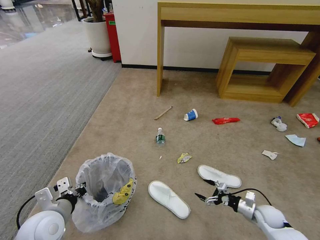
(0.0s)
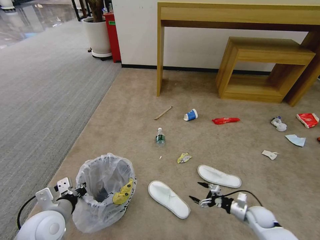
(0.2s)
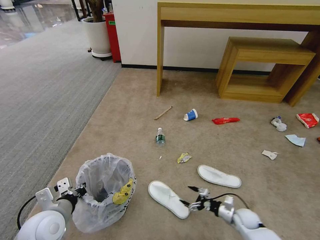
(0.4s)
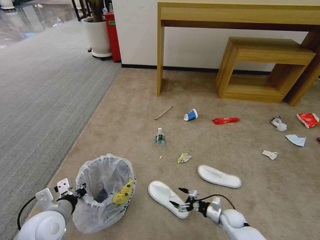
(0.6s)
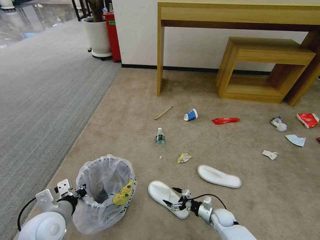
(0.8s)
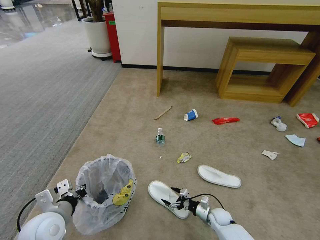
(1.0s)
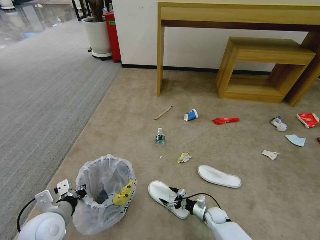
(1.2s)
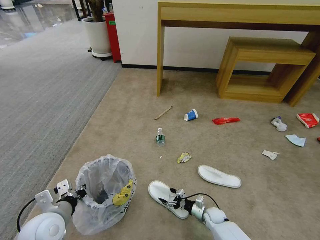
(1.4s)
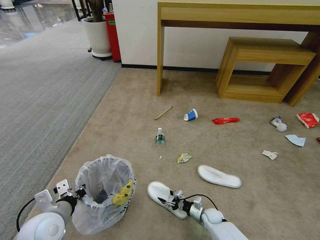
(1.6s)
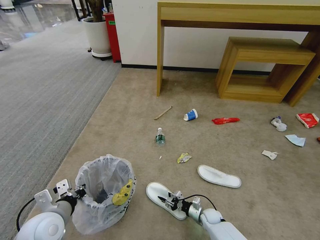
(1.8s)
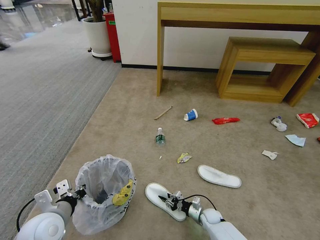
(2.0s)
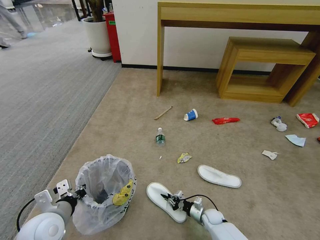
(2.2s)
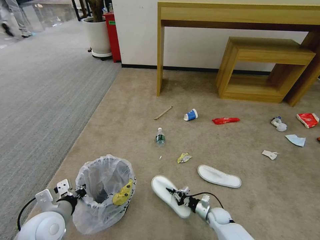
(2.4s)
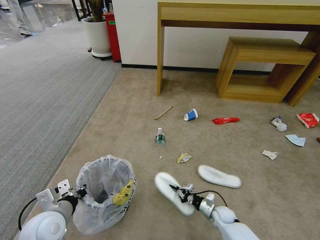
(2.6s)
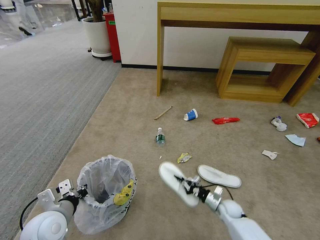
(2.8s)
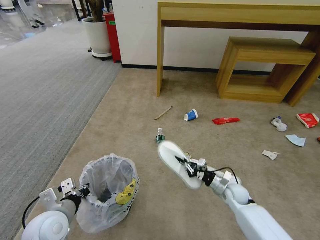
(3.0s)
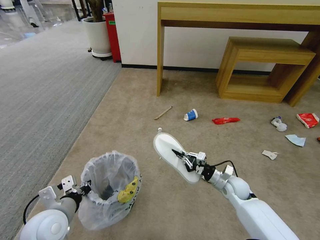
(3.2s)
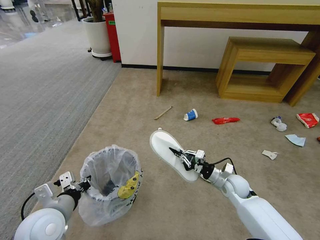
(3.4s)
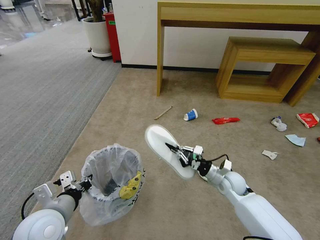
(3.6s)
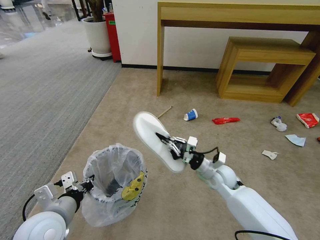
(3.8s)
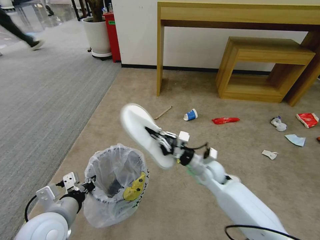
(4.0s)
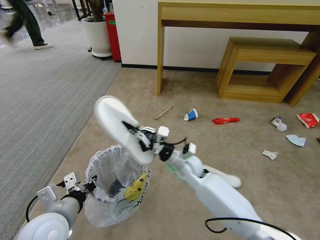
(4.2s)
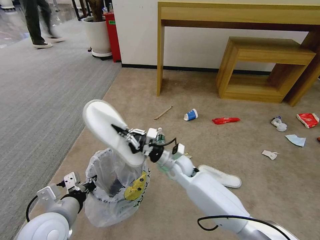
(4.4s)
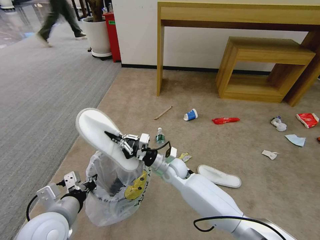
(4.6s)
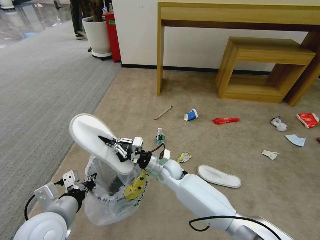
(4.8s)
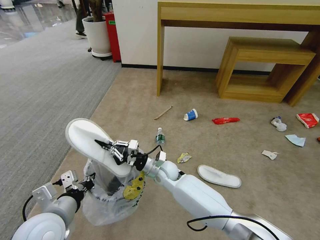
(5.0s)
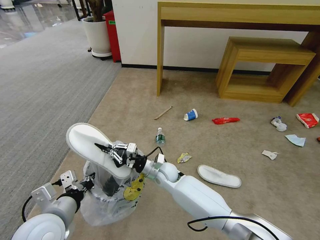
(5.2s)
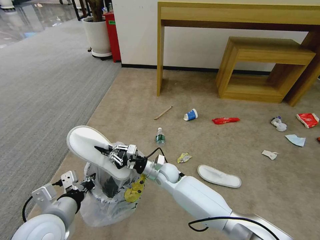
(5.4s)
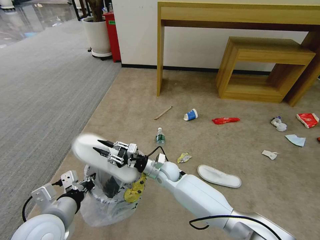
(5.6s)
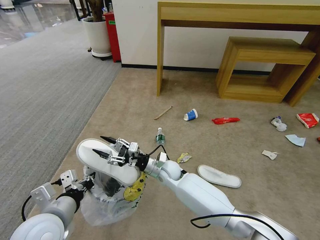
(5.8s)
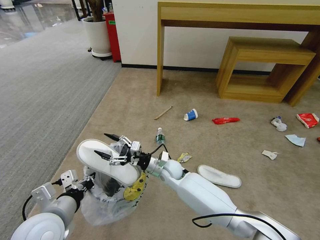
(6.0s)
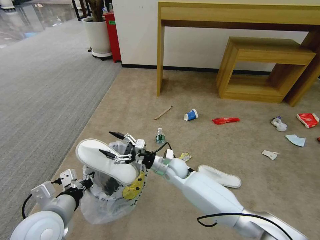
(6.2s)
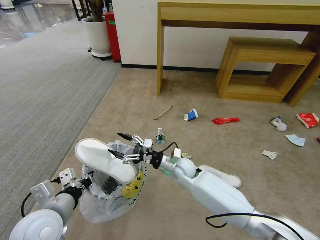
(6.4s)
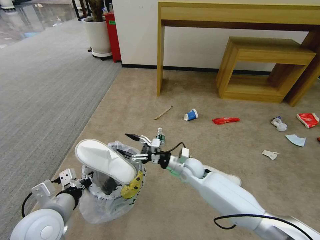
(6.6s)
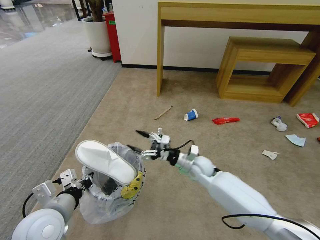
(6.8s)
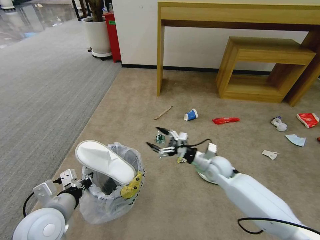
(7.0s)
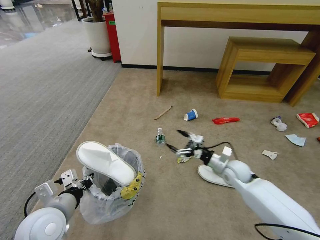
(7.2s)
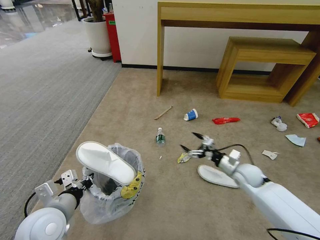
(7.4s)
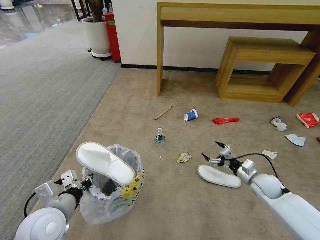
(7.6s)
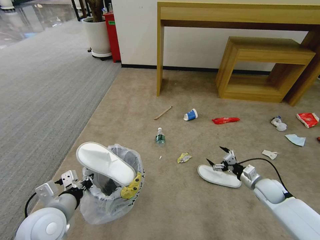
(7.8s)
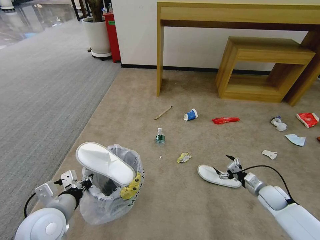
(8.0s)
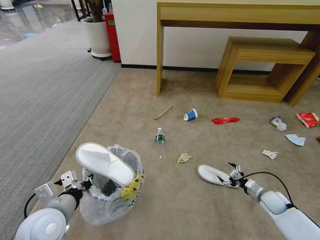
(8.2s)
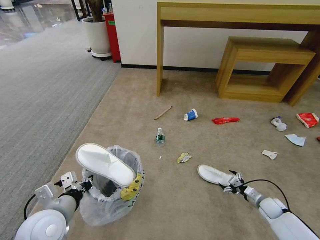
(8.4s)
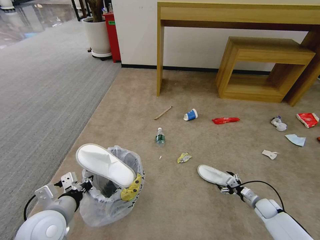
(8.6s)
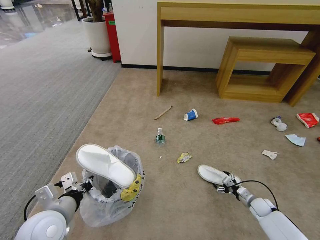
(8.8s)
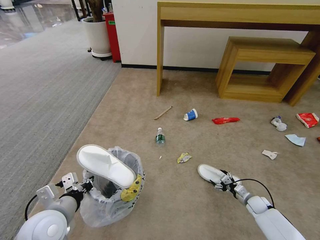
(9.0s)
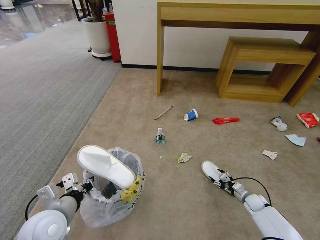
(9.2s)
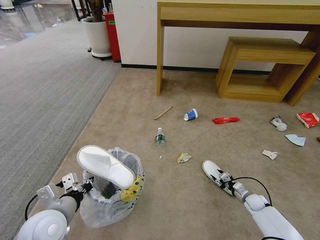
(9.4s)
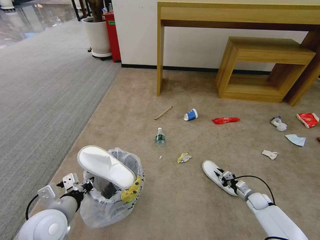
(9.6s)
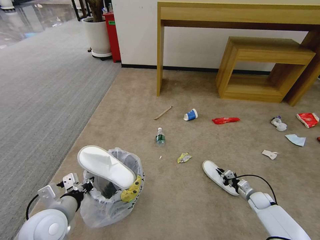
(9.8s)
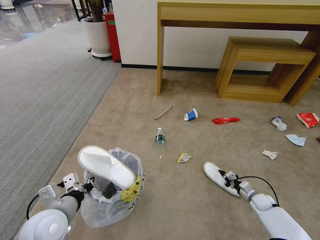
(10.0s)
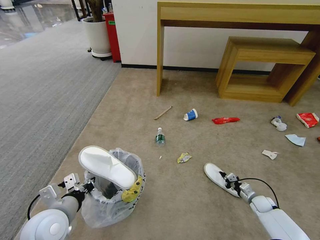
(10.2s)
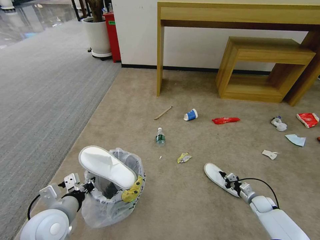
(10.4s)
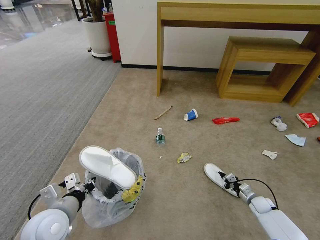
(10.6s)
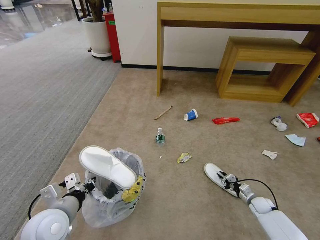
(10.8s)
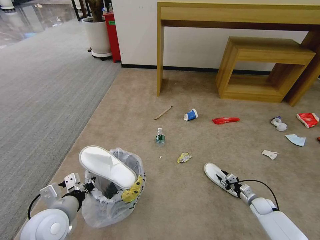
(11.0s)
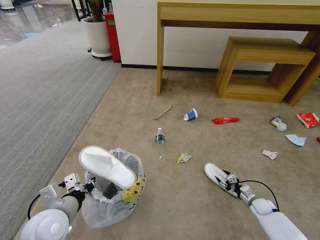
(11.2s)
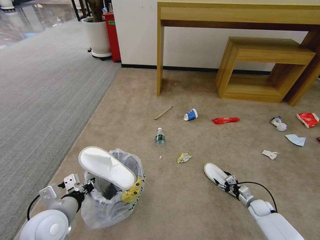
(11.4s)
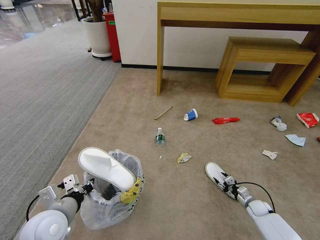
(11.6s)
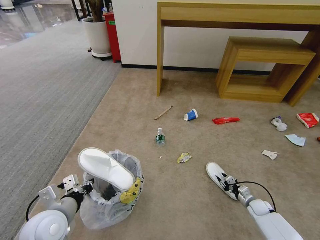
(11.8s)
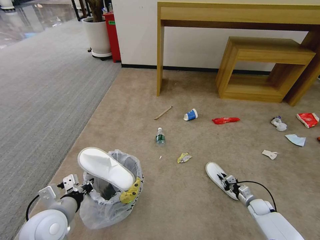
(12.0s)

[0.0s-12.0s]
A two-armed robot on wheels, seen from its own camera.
Task of the whole recording: Pick up the trash bin and place the garbage on the floor into it.
0.0s to 1.6s: The right gripper heads to the left and downward, covering approximately 20 cm, and closes.
1.6s to 3.0s: The right gripper goes approximately 15 cm upward and to the right, and closes.
3.0s to 4.4s: The left gripper goes roughly 5 cm upward. Meanwhile the right gripper goes approximately 30 cm to the left and upward.
4.4s to 6.0s: The right gripper opens up.
6.0s to 7.6s: The right gripper travels to the right by roughly 35 cm.
7.6s to 9.0s: The right gripper heads downward, covering roughly 15 cm.
9.0s to 10.4s: The right gripper closes.
10.4s to 12.0s: The right gripper opens, then closes again.

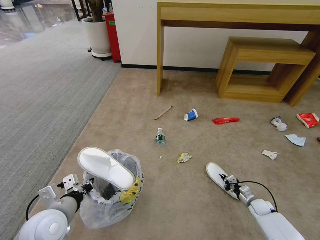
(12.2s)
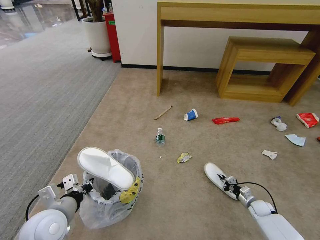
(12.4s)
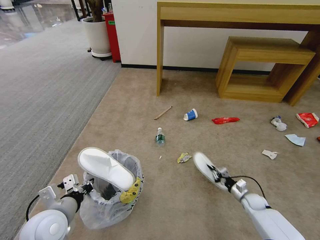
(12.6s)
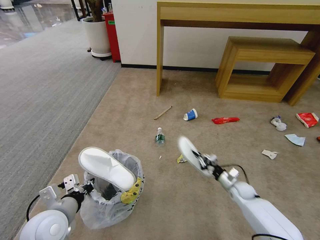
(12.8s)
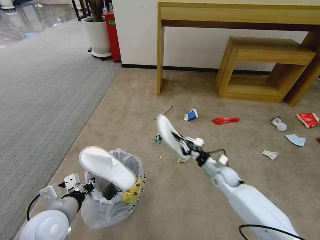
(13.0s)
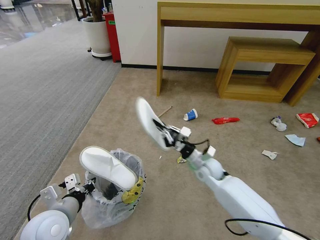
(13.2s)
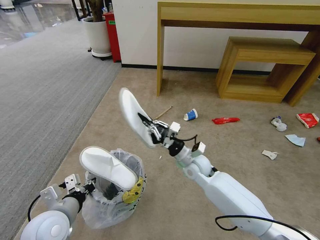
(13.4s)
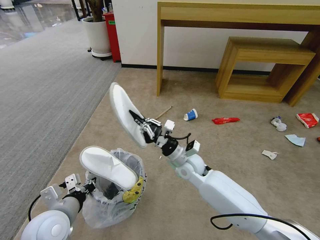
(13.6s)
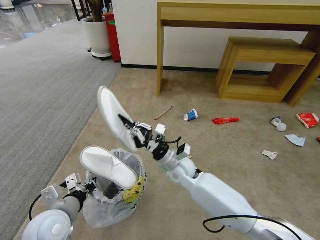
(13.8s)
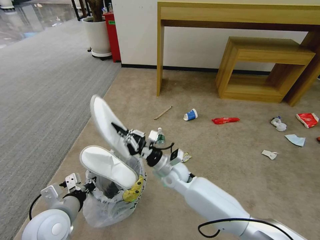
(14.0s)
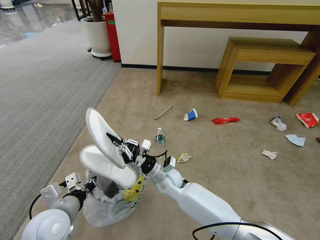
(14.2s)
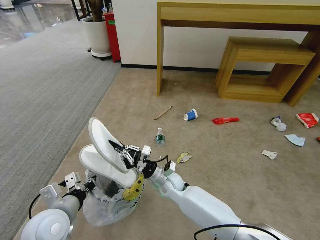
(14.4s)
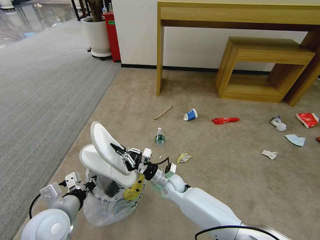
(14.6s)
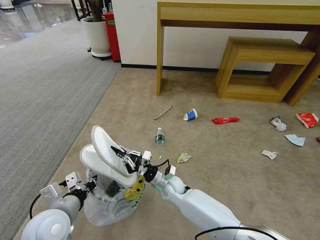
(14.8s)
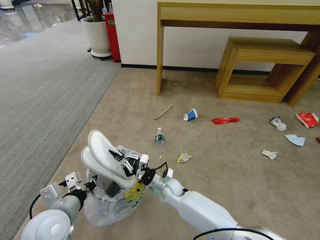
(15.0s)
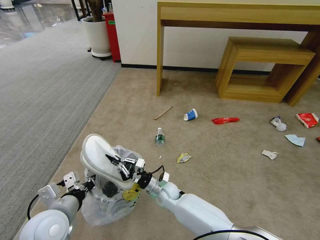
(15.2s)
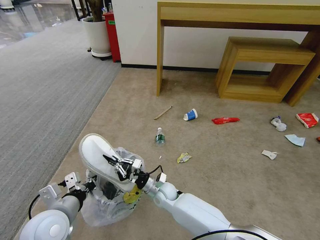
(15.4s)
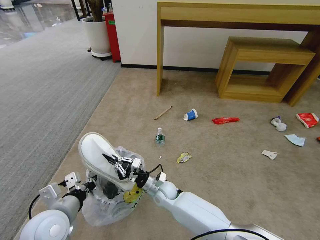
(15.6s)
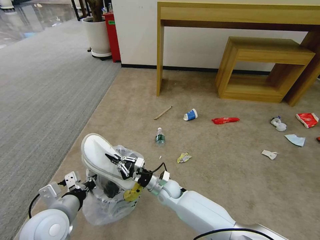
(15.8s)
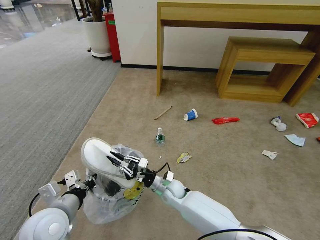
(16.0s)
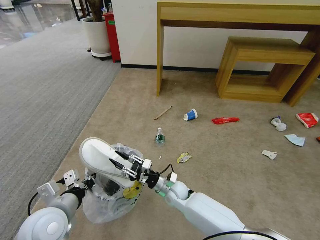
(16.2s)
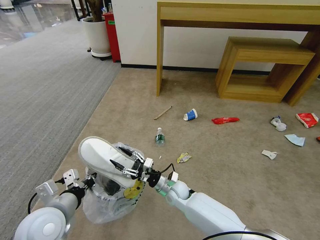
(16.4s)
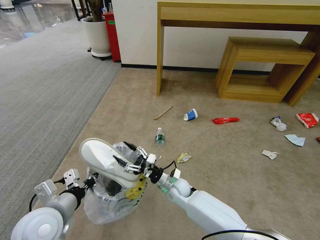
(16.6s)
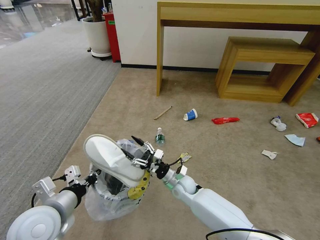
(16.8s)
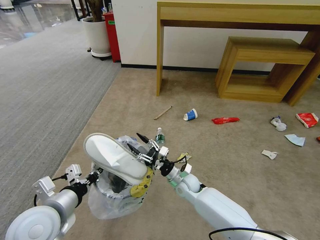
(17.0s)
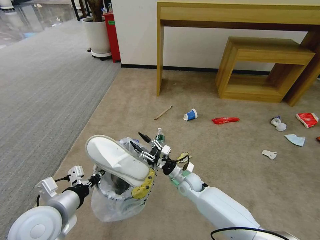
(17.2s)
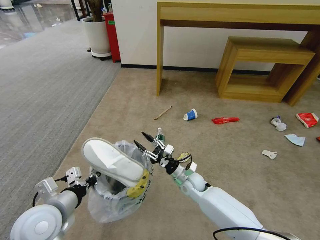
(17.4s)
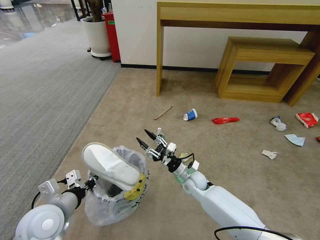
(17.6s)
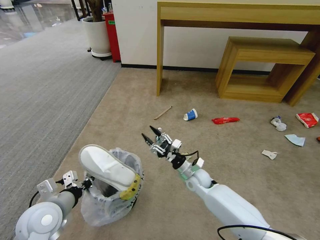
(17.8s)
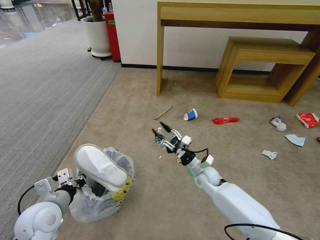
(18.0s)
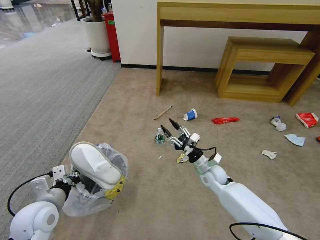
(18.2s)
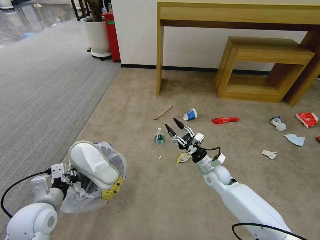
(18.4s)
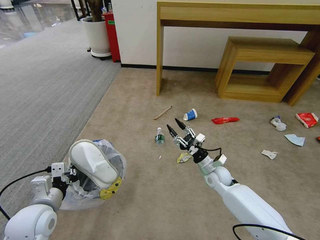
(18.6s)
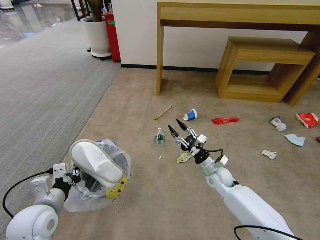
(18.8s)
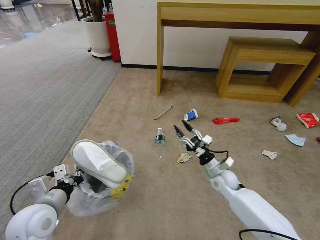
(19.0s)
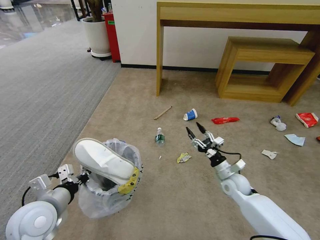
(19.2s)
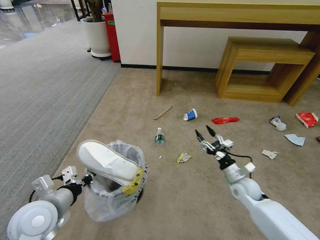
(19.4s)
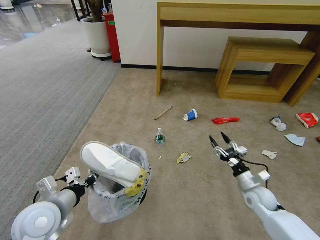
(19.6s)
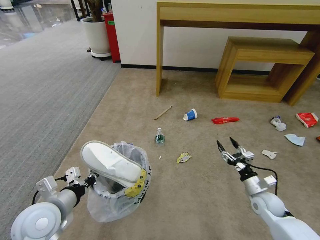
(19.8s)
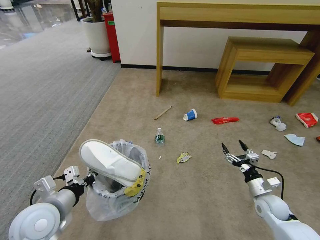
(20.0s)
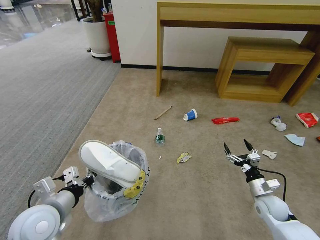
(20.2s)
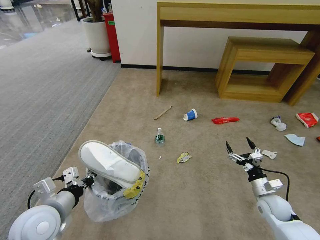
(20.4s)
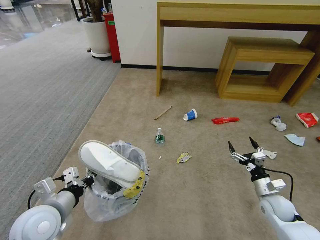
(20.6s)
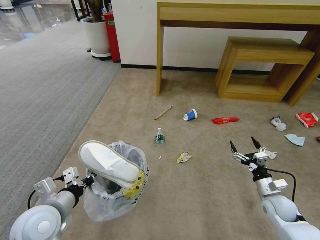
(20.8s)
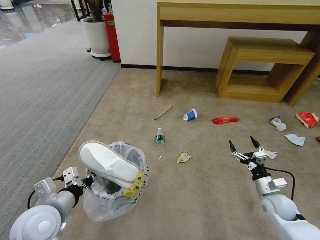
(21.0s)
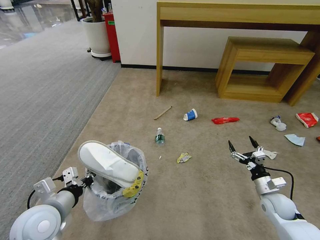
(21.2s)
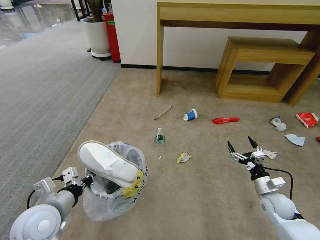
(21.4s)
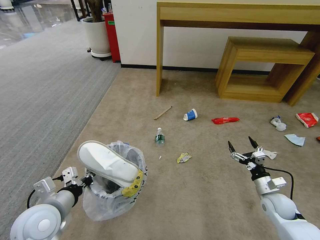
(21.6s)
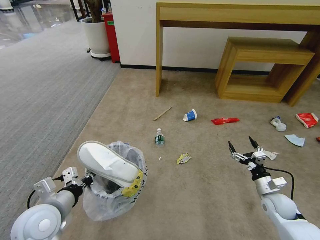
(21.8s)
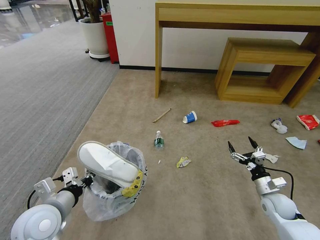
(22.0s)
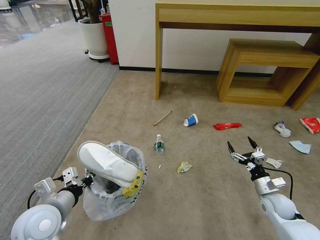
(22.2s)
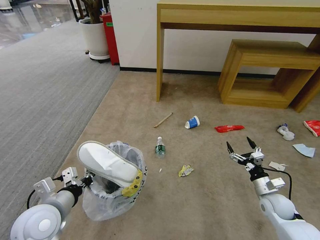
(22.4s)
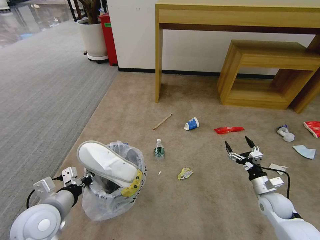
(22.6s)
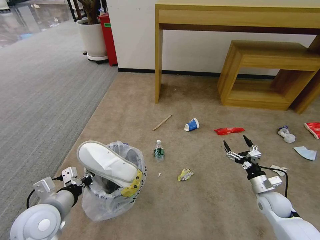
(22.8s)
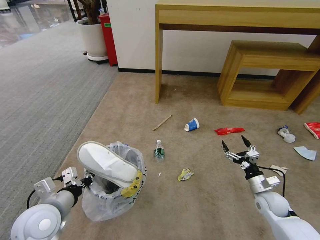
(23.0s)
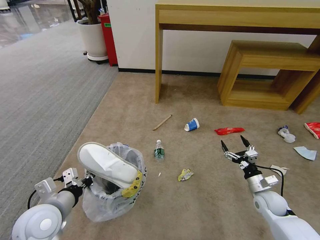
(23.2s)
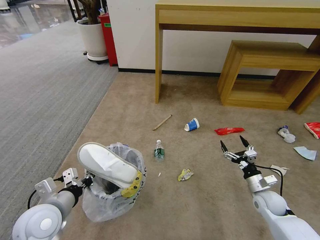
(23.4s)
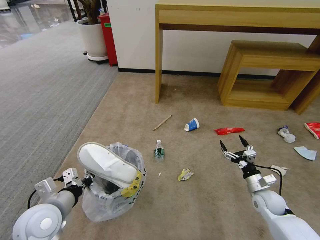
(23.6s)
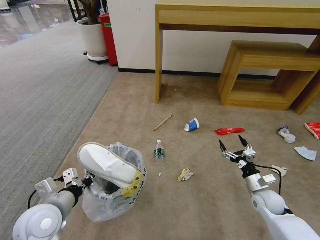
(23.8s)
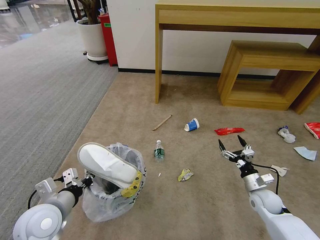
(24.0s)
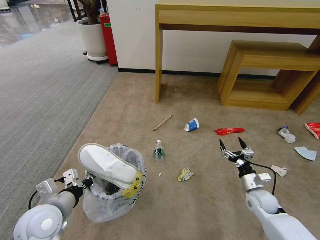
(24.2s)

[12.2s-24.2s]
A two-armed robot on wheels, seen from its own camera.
Task of the whole recording: Pick up the trash bin and place the garbage on the floor into it.
12.2s to 13.8s: The right gripper shifts approximately 50 cm to the left and upward.
13.8s to 15.2s: The right gripper travels downward by about 15 cm.
15.2s to 16.6s: The right gripper shifts by some 5 cm, and opens its fingers.
16.6s to 18.2s: The right gripper moves to the right, approximately 15 cm. Meanwhile the left gripper shifts by about 5 cm.
18.2s to 19.8s: The right gripper is displaced to the right and backward by about 20 cm.
19.8s to 21.2s: The grippers move only a little.
21.2s to 22.6s: The two grippers keep their place.
22.6s to 24.2s: There are only small adjustments of the grippers.
